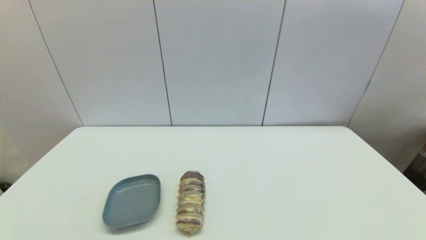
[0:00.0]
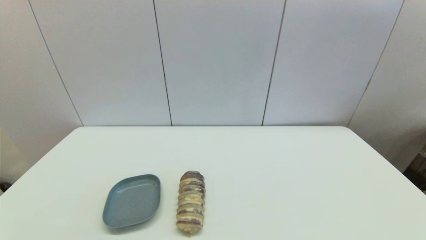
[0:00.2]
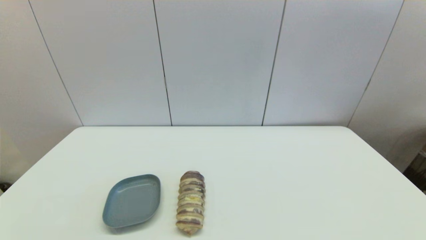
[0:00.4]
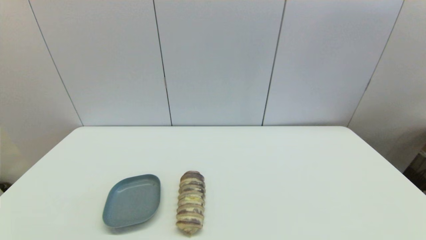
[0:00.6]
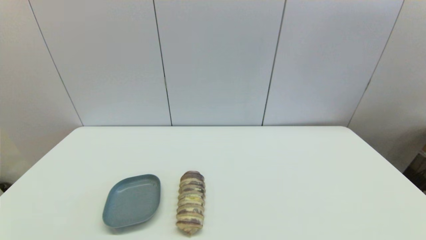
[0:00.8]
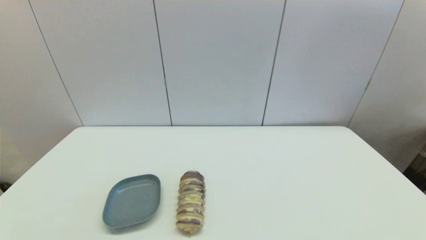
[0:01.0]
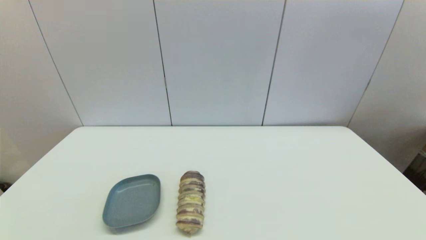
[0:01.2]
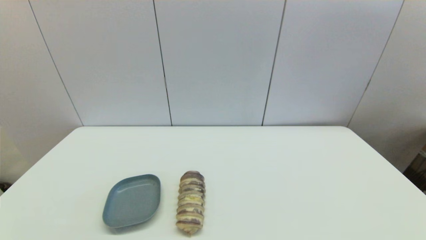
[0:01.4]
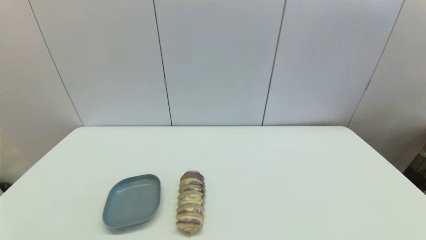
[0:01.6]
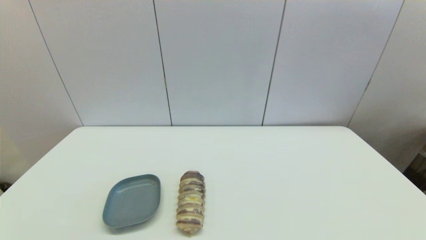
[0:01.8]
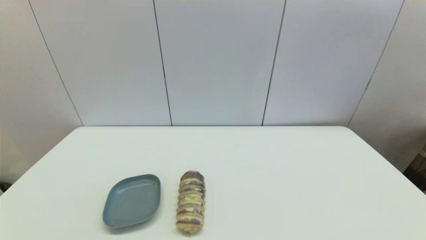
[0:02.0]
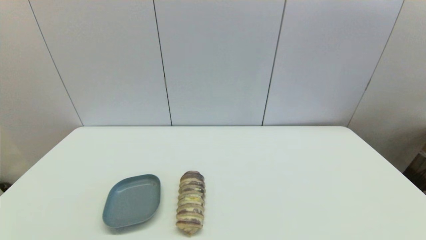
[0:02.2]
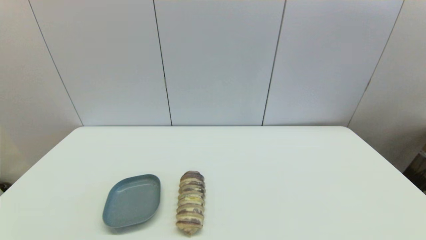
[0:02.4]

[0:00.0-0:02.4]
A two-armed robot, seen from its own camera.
0:00.0 to 0:02.4: The two grippers keep their place.
